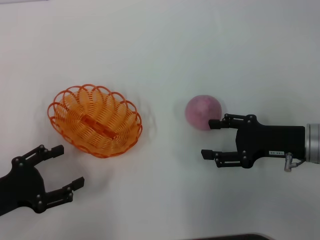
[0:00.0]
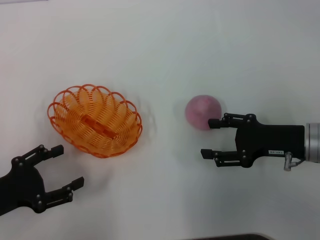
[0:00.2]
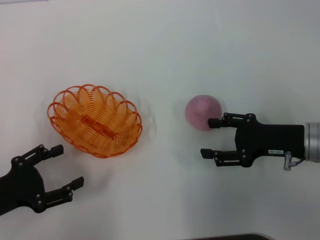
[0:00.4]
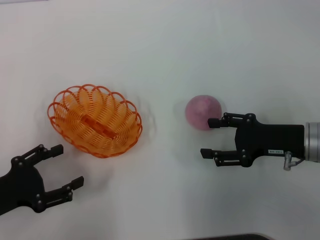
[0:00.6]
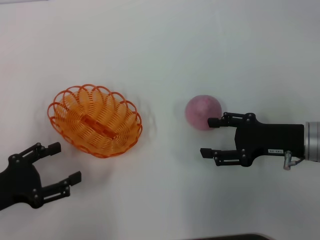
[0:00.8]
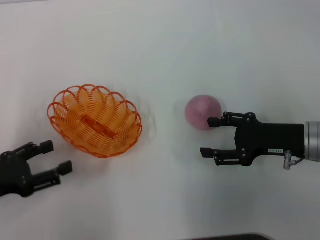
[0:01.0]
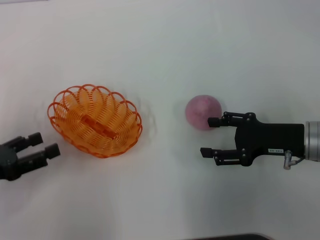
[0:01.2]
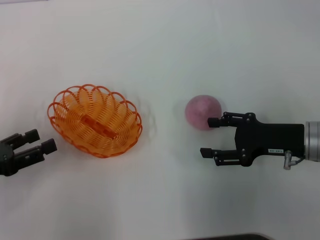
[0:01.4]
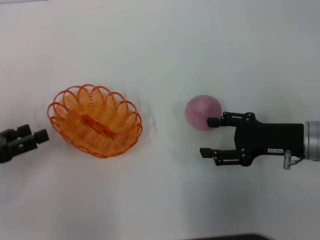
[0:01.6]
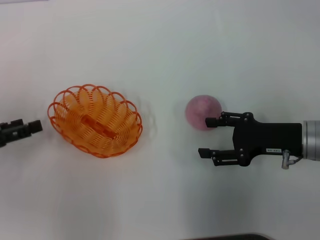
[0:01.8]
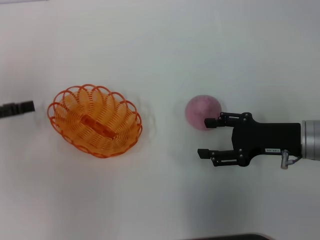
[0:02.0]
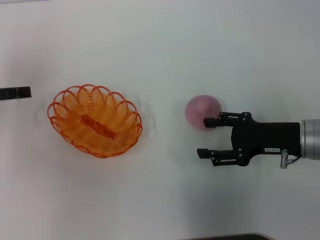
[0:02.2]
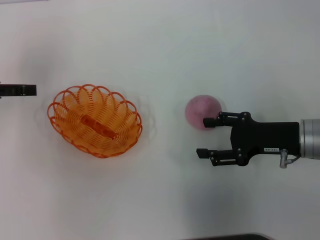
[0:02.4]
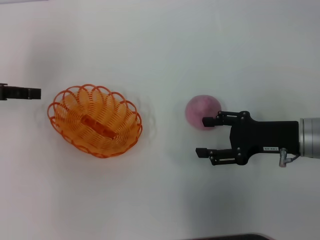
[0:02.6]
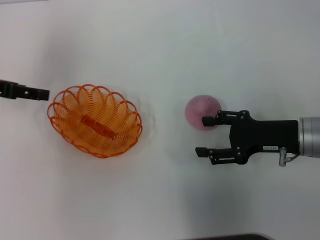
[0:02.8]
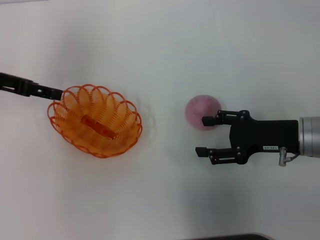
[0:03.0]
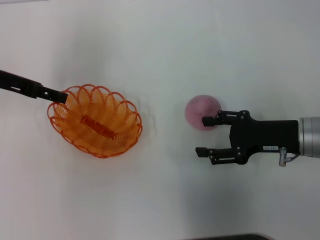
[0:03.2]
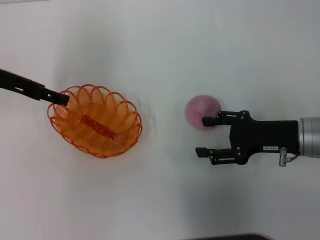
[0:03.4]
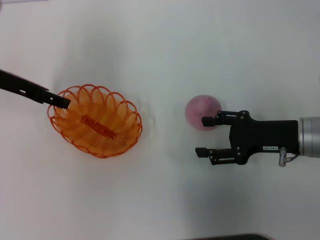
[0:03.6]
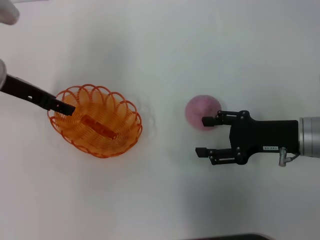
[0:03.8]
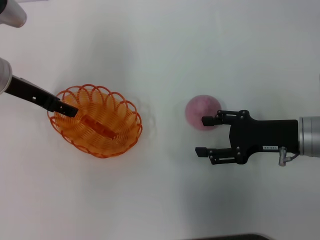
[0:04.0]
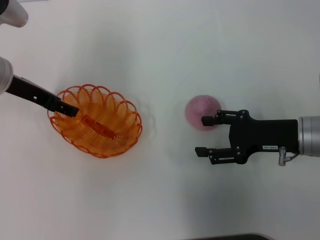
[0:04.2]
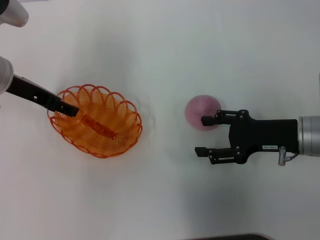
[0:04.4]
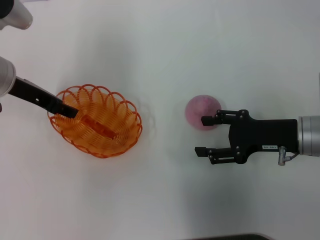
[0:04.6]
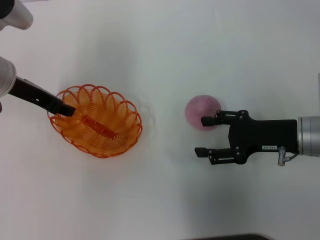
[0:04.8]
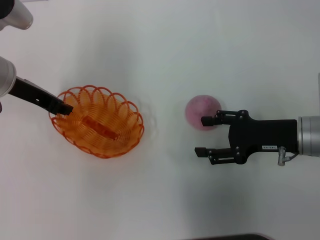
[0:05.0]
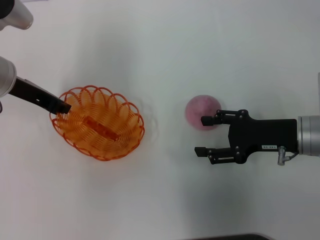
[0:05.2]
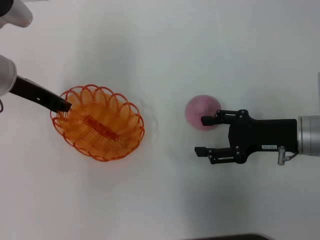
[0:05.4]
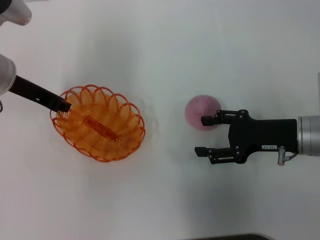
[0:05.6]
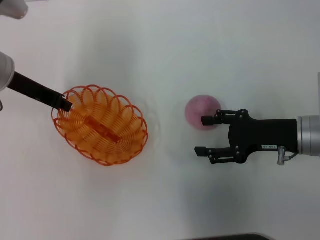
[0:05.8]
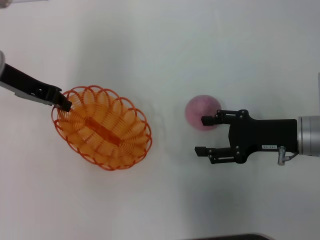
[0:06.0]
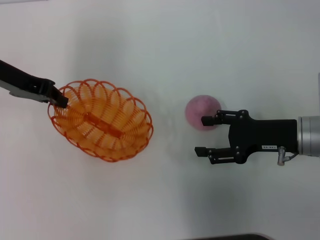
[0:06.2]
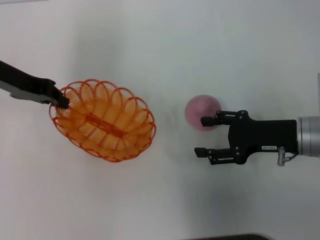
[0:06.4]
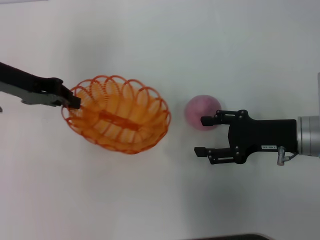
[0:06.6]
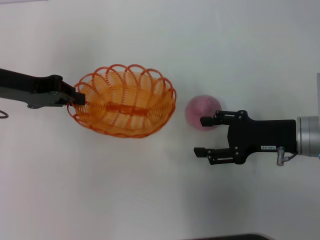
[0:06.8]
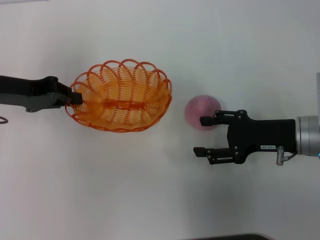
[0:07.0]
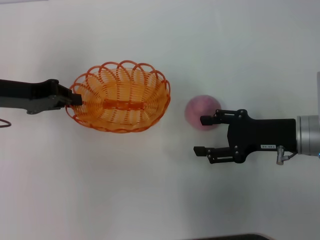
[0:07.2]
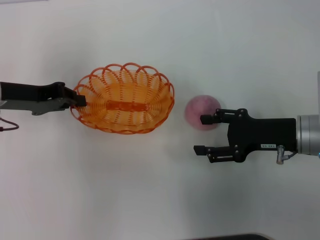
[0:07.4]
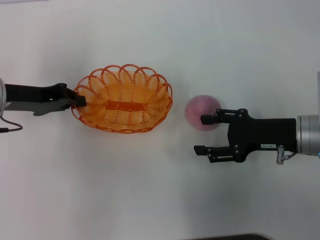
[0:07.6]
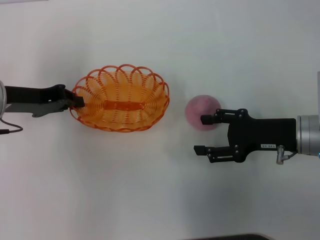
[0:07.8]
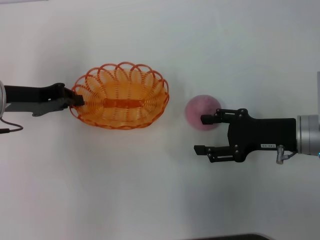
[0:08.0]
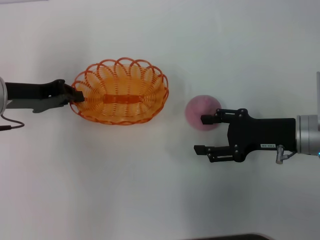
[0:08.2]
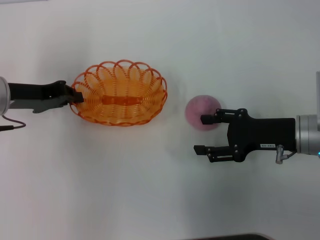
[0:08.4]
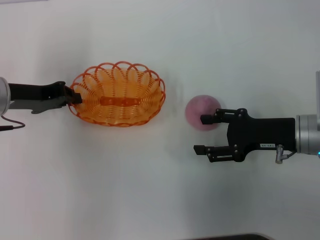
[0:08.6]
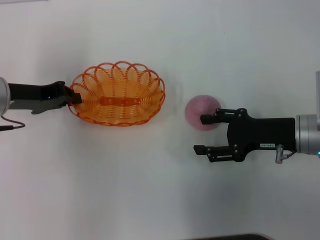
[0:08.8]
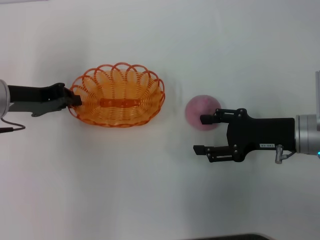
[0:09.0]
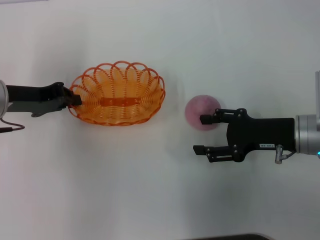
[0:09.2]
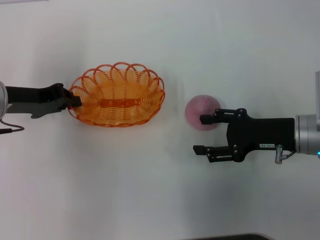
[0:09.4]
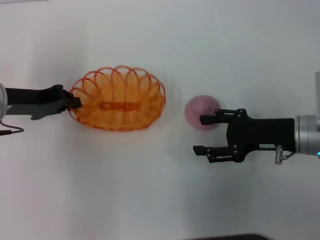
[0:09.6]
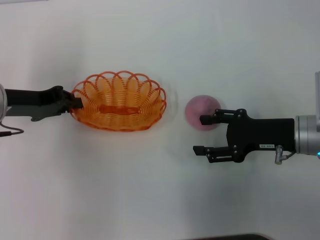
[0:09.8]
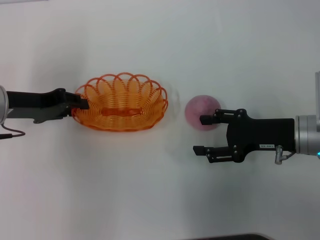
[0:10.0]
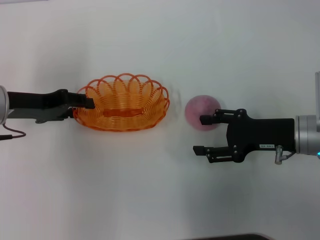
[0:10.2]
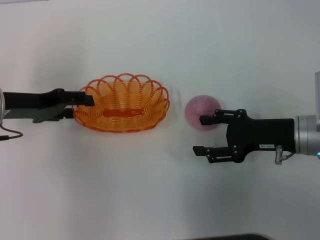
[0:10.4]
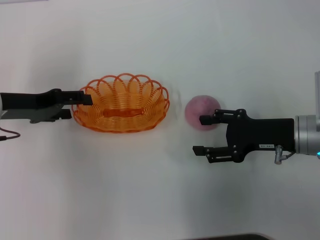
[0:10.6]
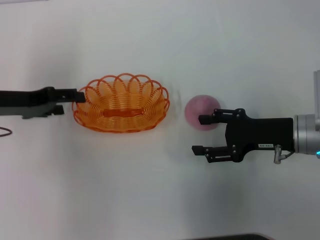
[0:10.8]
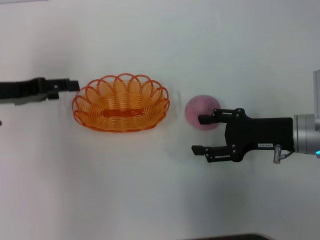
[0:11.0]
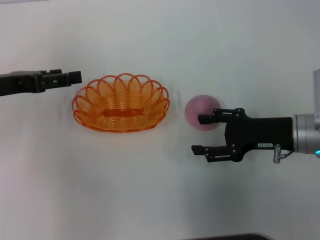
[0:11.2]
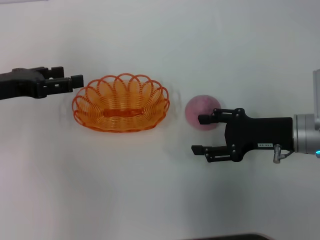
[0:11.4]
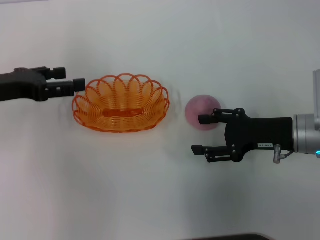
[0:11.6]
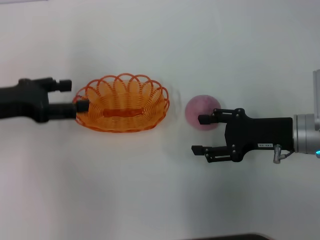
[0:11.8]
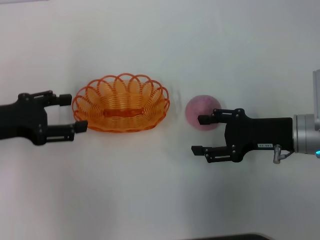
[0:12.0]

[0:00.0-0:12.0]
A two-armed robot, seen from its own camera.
Step, 0:00.0 to 0:06.0: Pick up the basket with the left gripper.
0:00.0 to 0:01.6: The left gripper shifts by some 5 cm.
0:01.6 to 0:03.0: The left gripper heads forward and upward, covering approximately 15 cm.
0:03.0 to 0:04.4: The left gripper goes some 5 cm to the right.
0:04.4 to 0:06.0: The left gripper closes its fingers.
0:06.0 to 0:07.6: The left gripper heads downward, covering roughly 5 cm.
0:07.6 to 0:09.0: There are only small adjustments of the grippers.
0:09.0 to 0:10.4: The left gripper opens up.
0:10.4 to 0:12.0: The left gripper ends up approximately 5 cm from where it was, and opens up.

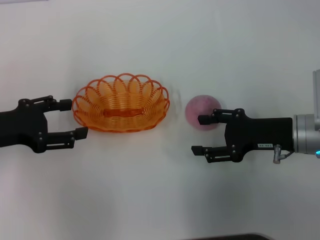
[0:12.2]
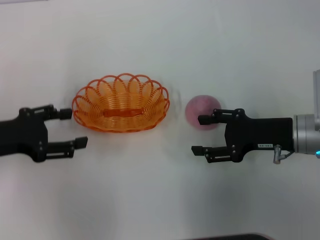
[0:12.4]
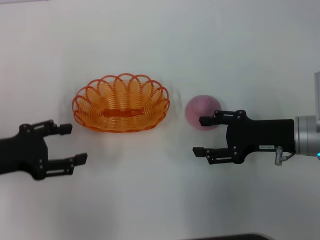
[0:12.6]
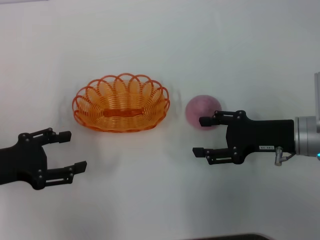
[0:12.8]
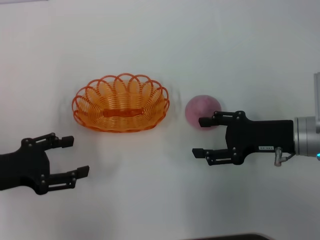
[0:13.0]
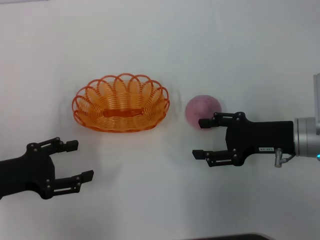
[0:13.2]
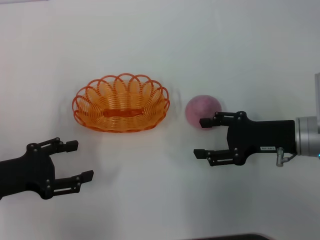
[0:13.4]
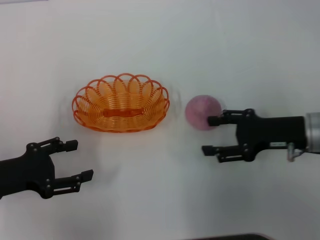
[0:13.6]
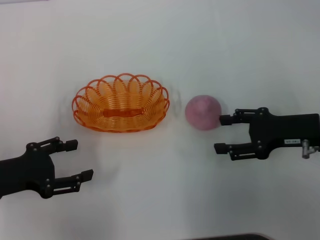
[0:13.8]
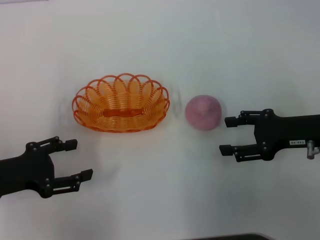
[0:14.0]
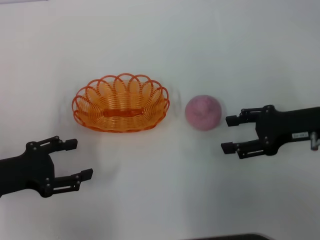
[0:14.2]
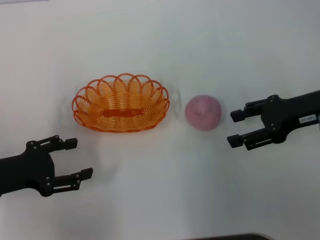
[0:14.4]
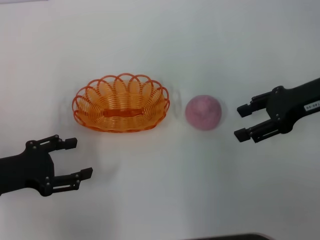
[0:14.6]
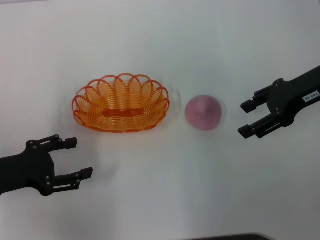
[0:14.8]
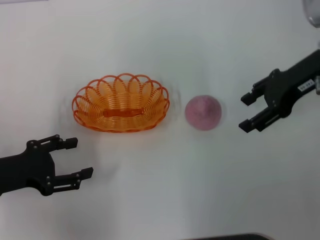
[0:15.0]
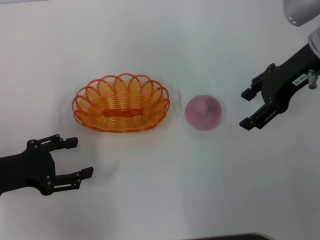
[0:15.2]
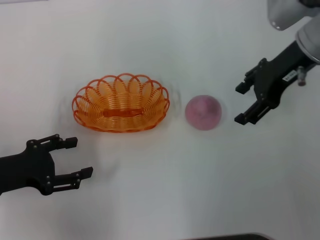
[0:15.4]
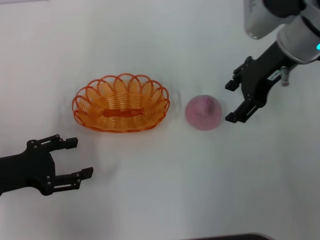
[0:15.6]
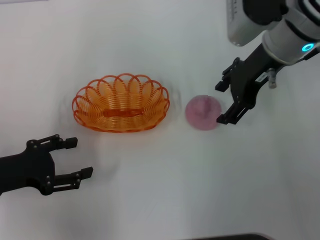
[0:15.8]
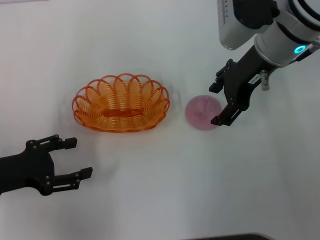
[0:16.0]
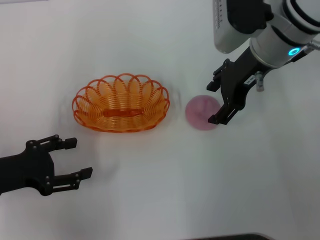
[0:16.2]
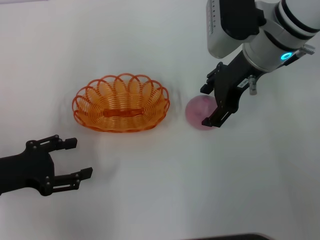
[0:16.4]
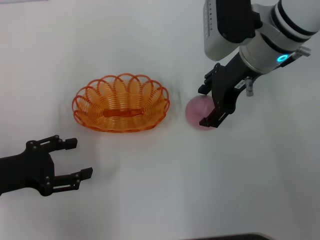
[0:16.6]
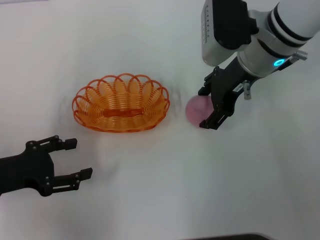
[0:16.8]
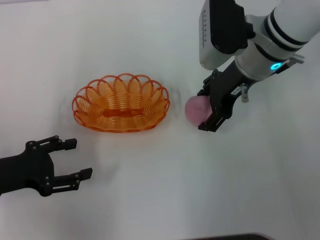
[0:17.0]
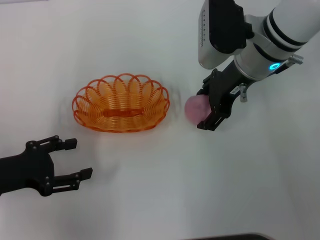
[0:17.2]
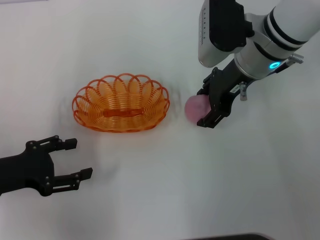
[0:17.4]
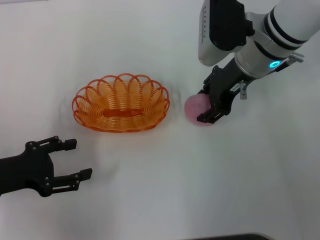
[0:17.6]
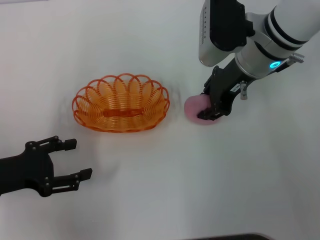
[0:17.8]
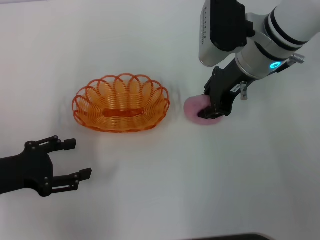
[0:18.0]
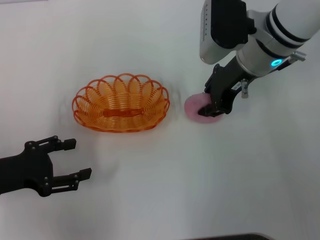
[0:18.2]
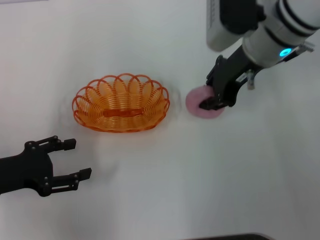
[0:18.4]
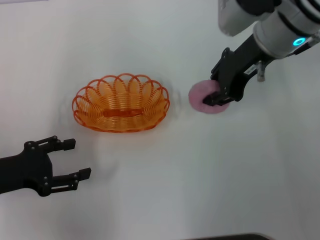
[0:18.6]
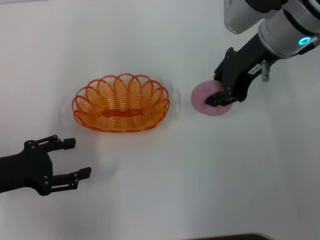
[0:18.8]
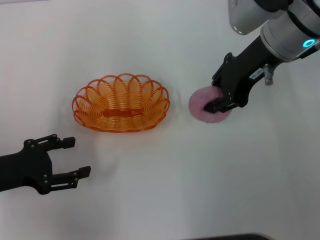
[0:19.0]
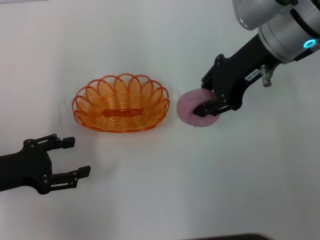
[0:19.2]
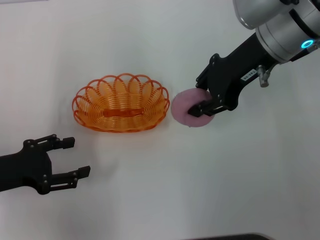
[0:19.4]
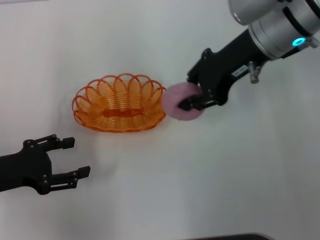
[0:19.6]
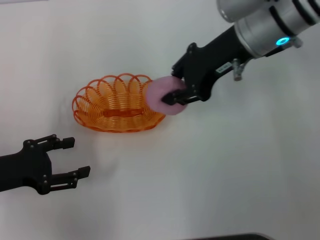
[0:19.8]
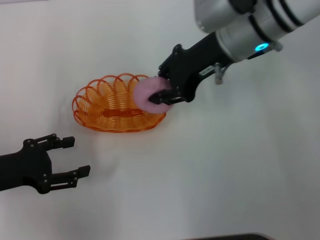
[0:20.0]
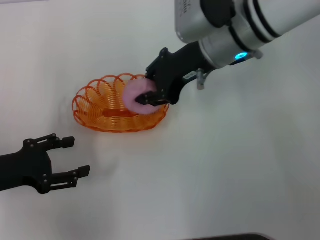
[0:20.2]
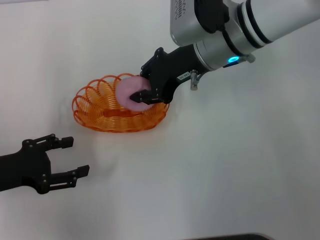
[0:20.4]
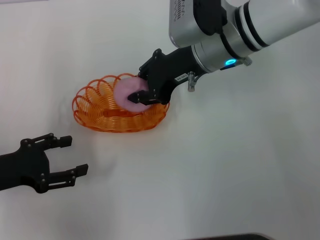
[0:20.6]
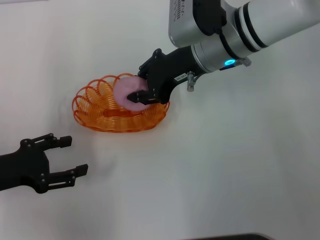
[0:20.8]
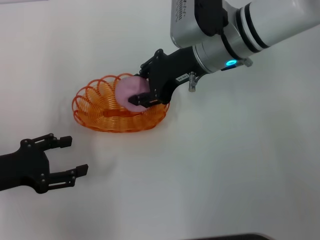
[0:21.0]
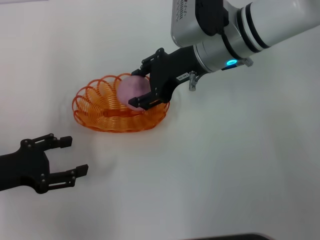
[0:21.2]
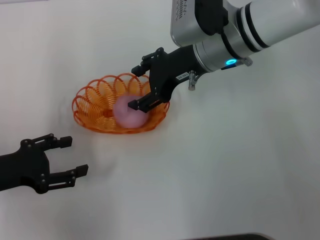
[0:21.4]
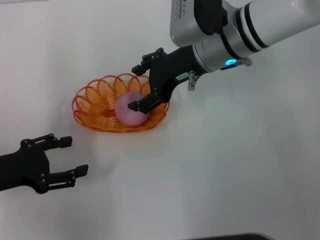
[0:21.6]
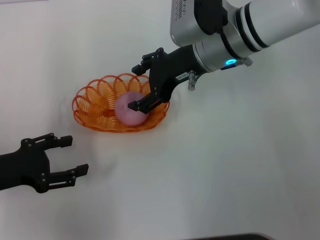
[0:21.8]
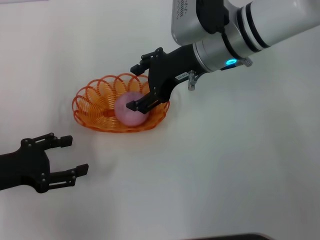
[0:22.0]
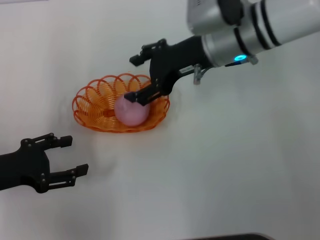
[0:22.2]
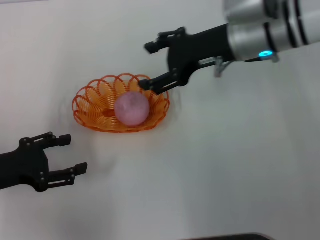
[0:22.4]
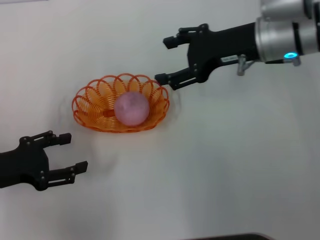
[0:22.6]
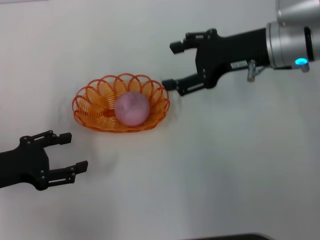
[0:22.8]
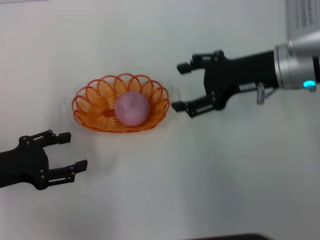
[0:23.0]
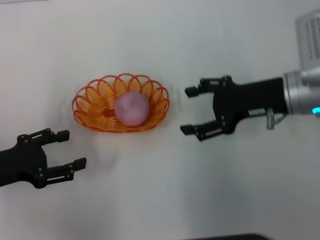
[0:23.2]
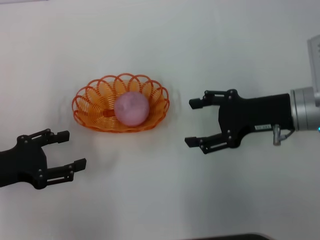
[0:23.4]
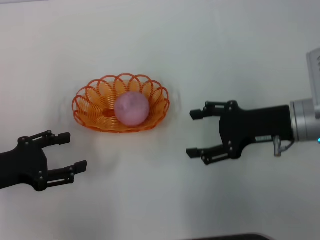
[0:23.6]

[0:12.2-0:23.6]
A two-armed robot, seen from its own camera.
Step, 0:12.8 to 0:18.8: Pick up the peach with the right gripper.
Step, 0:19.0 to 0:23.0: Place the peach into the basket with the right gripper.
0:12.2 to 0:13.6: The left gripper shifts roughly 5 cm backward.
0:13.6 to 0:15.0: The right gripper travels upward and forward by roughly 15 cm.
0:15.0 to 0:16.4: The right gripper moves to the left, some 10 cm.
0:16.4 to 0:17.8: The right gripper closes.
0:17.8 to 0:19.4: The right gripper travels upward by roughly 5 cm, and closes up.
0:19.4 to 0:20.8: The right gripper is displaced to the left and downward by roughly 10 cm.
0:20.8 to 0:22.2: The right gripper opens its fingers.
0:22.2 to 0:23.6: The right gripper is displaced to the right, backward and downward by roughly 15 cm.
